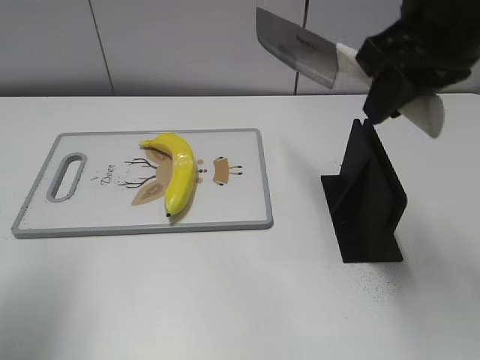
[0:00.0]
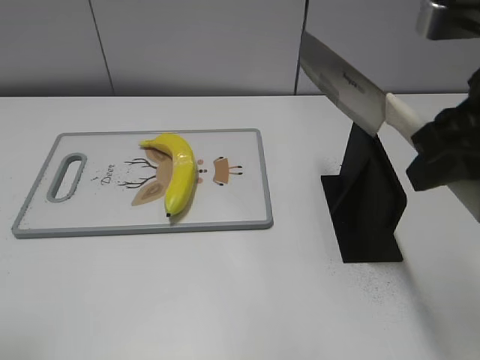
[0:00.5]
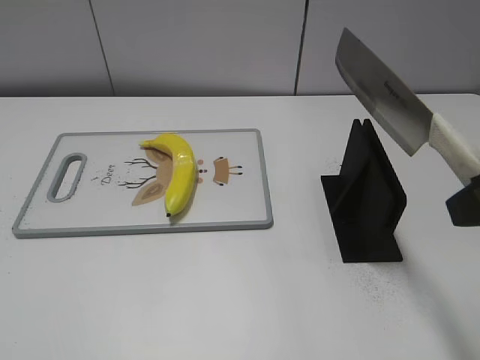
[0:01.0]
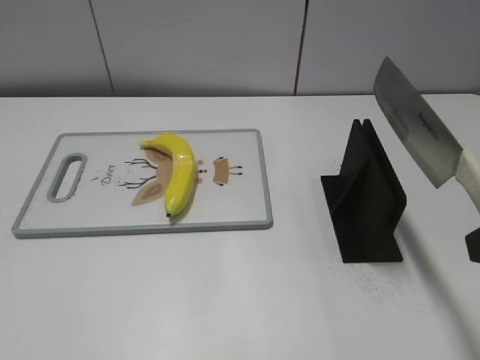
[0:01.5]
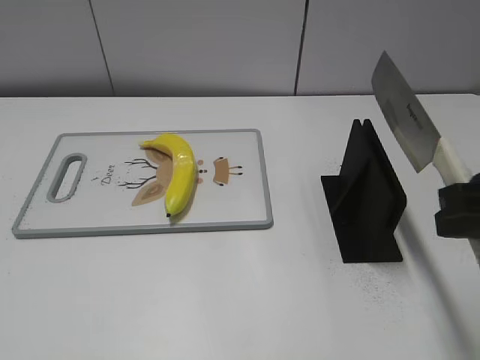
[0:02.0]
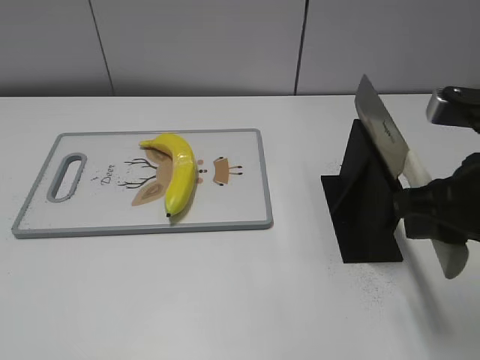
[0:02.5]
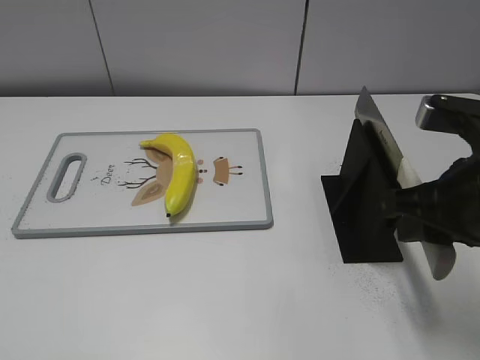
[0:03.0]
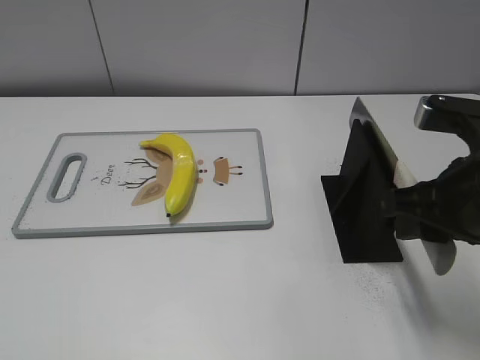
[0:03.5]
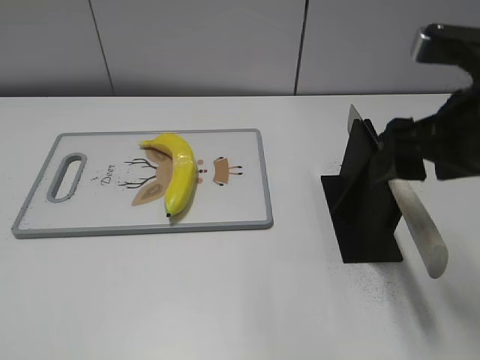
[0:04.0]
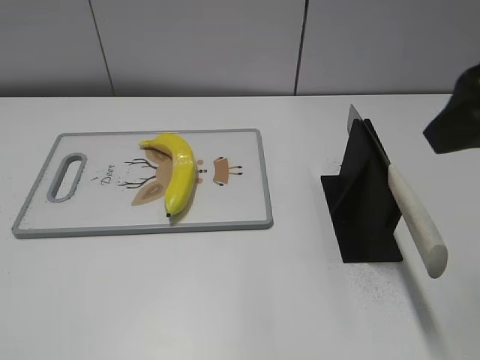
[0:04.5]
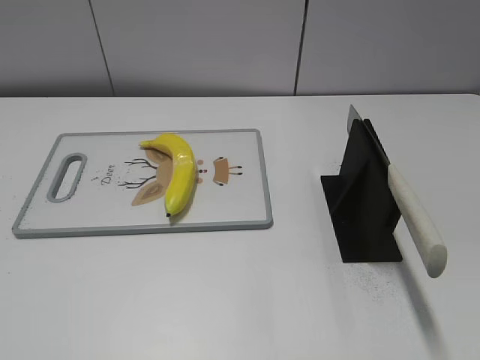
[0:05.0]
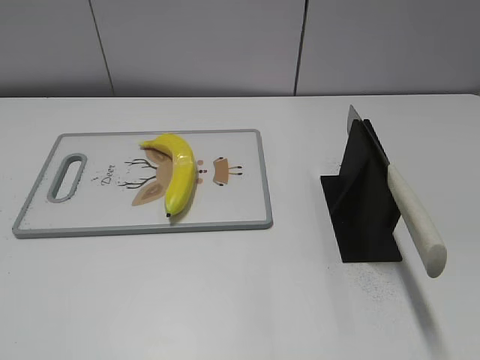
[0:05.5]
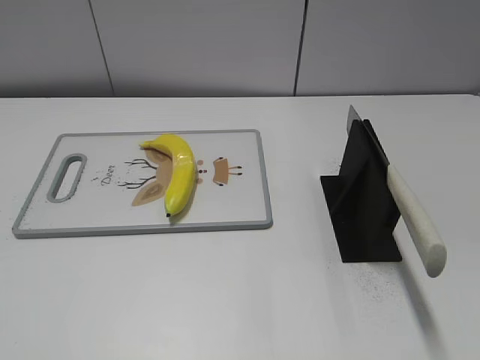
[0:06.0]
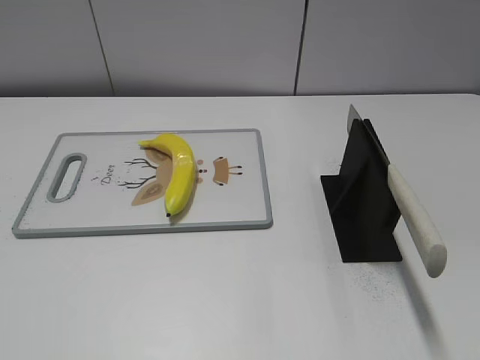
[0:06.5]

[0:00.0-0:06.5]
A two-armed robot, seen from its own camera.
Task of the whole recording: cut plastic banana.
Step, 0:01.0 to 0:06.5: Place the knife on the storage rack with your right hand.
0:00.0 to 0:02.0: The left gripper moves backward, some 20 cm. The right gripper moves backward, downward and to the right, approximately 15 cm.
0:02.0 to 0:04.5: The right gripper travels upward by roughly 10 cm, and opens up.
0:04.5 to 0:06.5: The right gripper goes roughly 20 cm backward and to the right.

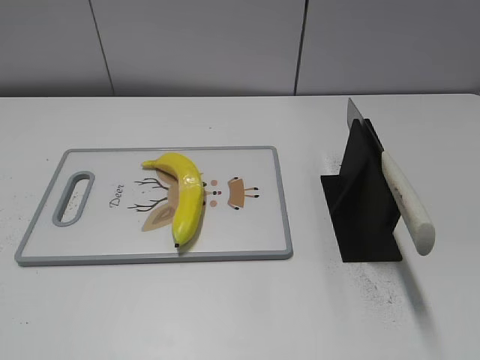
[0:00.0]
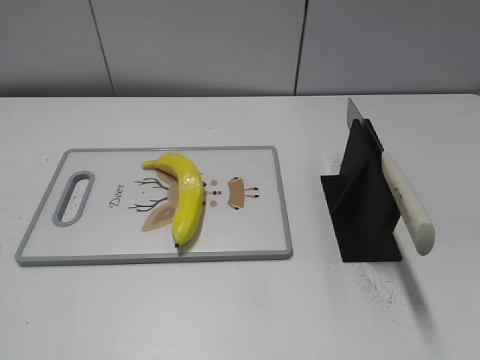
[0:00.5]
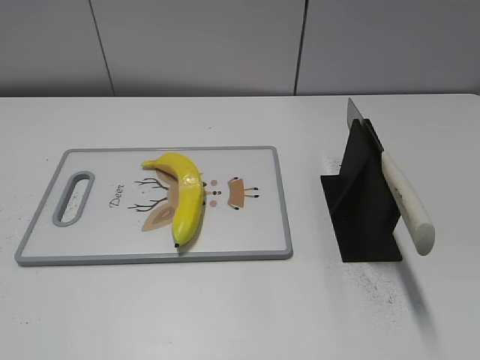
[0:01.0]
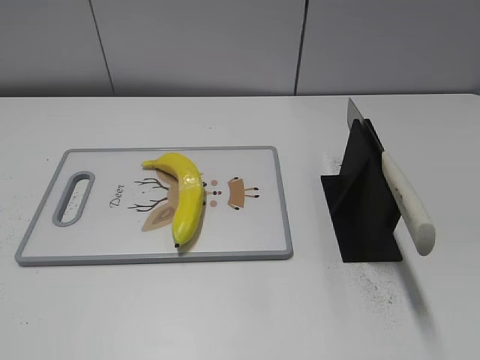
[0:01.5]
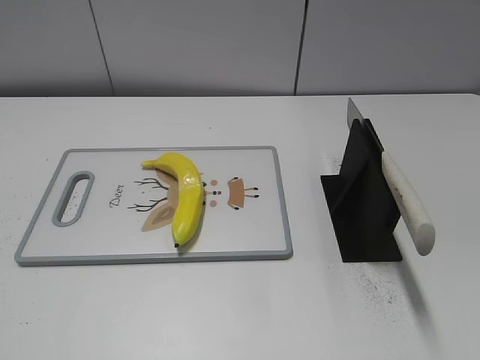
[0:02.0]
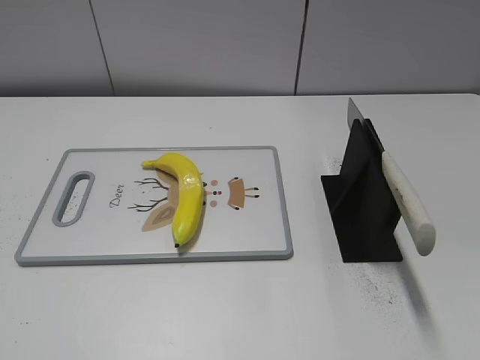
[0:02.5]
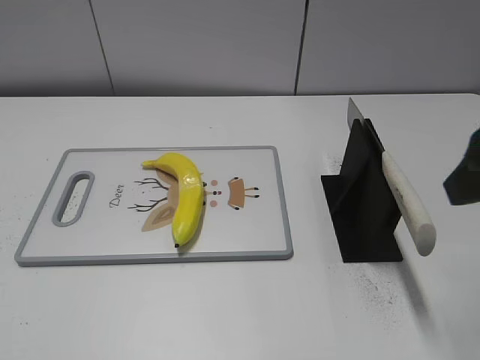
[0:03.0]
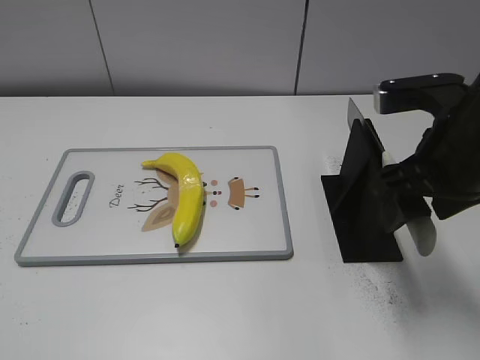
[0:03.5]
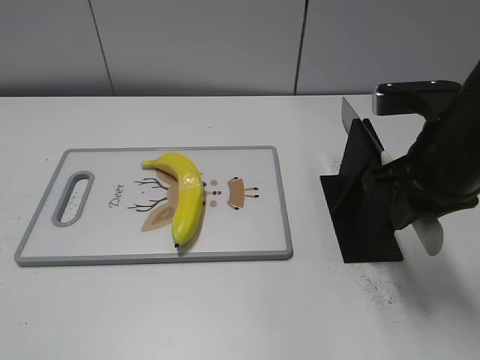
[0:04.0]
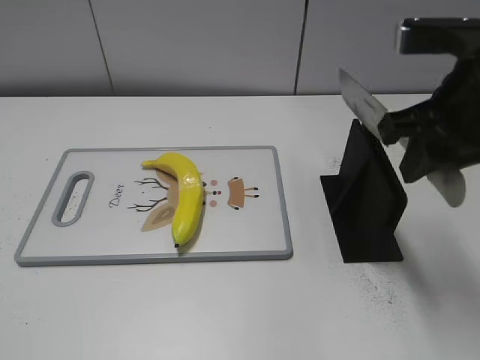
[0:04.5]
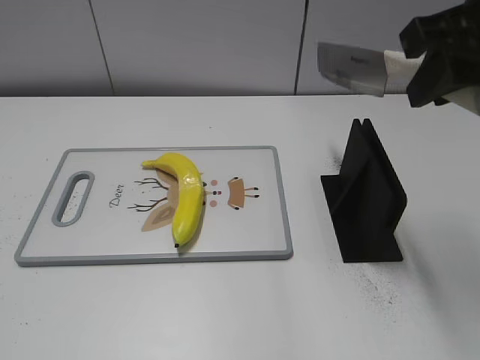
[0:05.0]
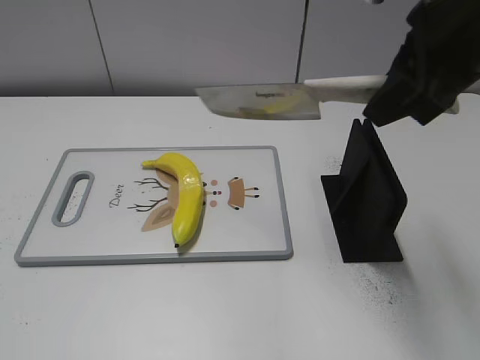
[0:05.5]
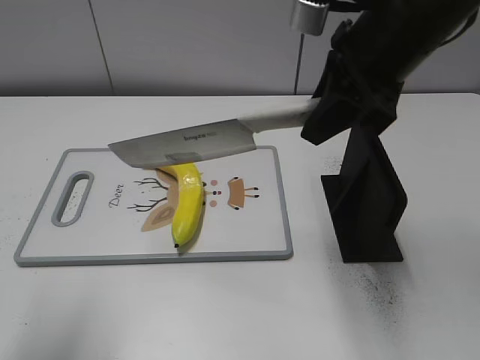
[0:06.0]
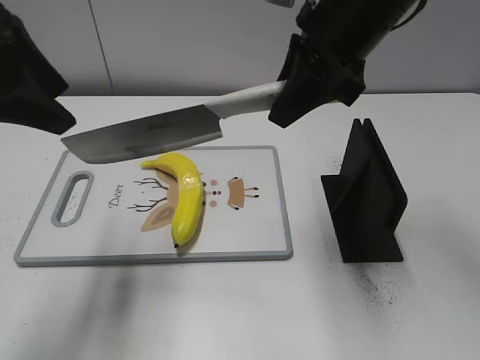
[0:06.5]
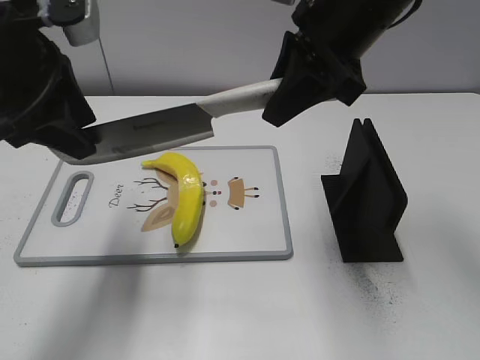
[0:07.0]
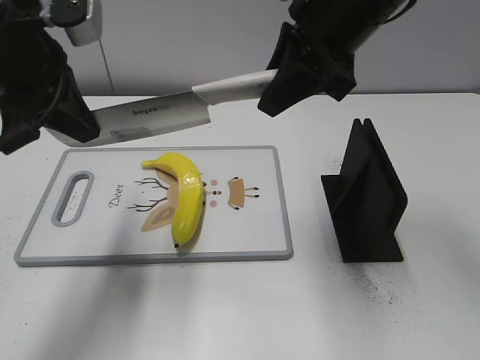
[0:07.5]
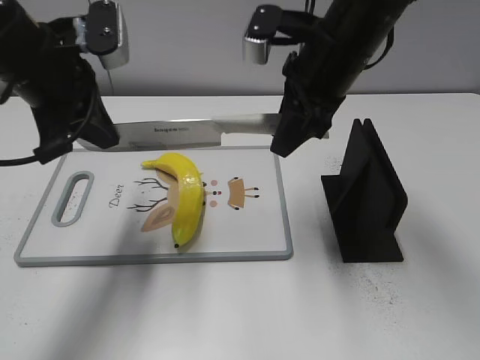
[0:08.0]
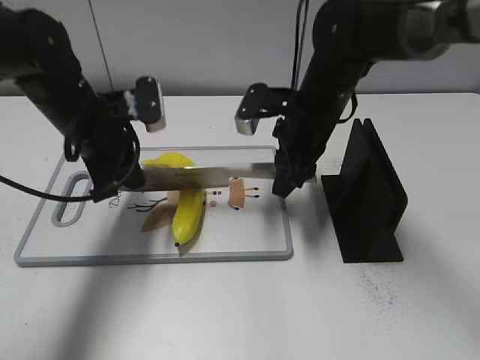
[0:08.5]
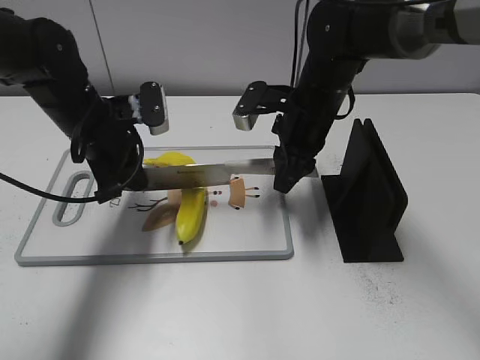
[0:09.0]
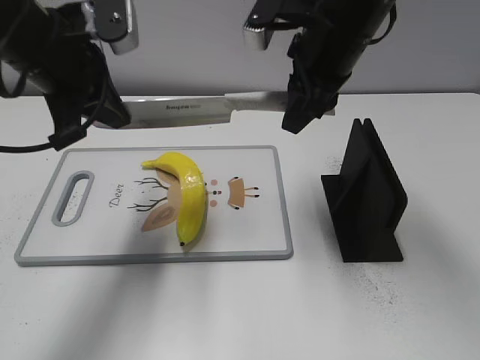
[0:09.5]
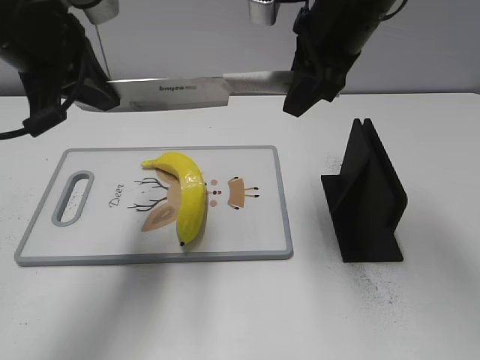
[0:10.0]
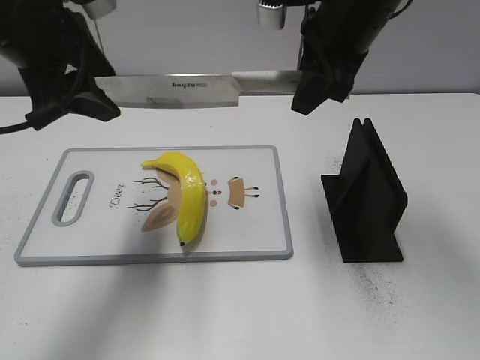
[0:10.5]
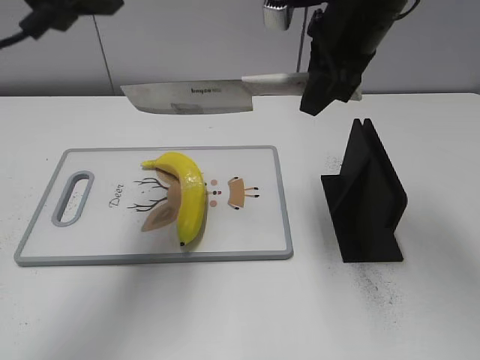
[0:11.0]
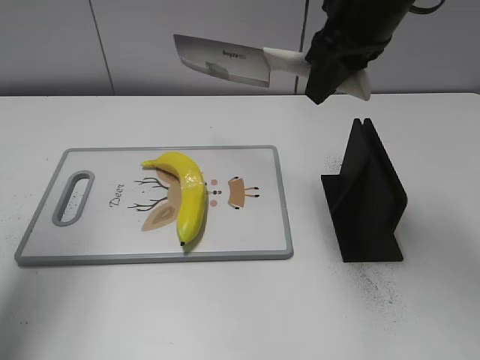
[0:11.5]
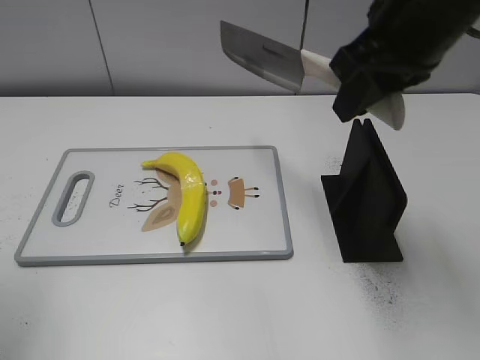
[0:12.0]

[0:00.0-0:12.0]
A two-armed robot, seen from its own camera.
Task of the whole recording: cut plastic banana.
Step, 0:00.0 to 0:05.0: Grab the knife handle with your right hand.
Step, 0:05.5 to 0:09.0: Lift the knife with your right hand.
Step, 0:09.5 to 0:10.5: Cut the banana with your right hand.
0:02.0 to 0:04.0: The right gripper shifts about 25 cm forward, to the left and downward, and closes.
0:04.0 to 0:06.0: The left gripper travels forward by roughly 15 cm, while the right gripper moves upward and to the left, some 10 cm.
0:06.0 to 0:08.0: The left gripper travels forward and to the right by approximately 20 cm, and closes up, while the right gripper travels forward and downward by roughly 10 cm.
0:08.0 to 0:10.0: The left gripper goes downward and returns, roughly 10 cm each way. The right gripper moves about 10 cm downward and comes back.
0:10.0 to 0:12.0: The left gripper goes roughly 20 cm backward and to the left, and opens its fingers. The right gripper is displaced backward by about 5 cm.

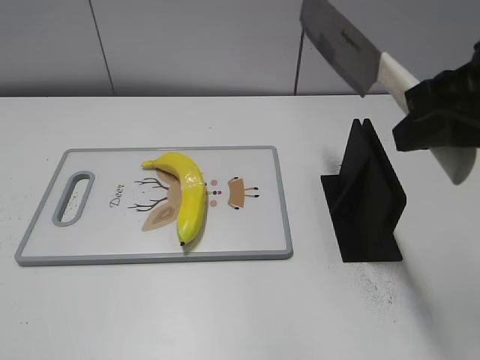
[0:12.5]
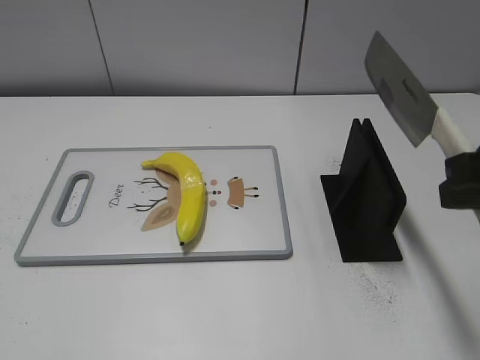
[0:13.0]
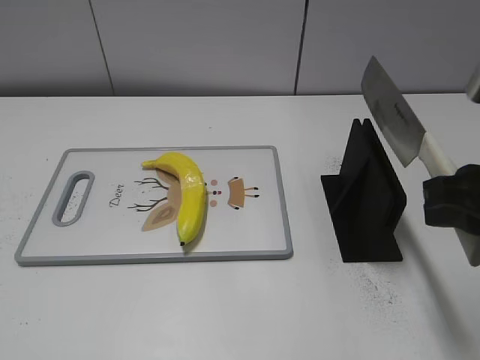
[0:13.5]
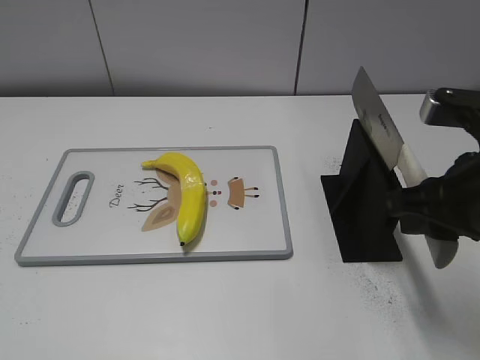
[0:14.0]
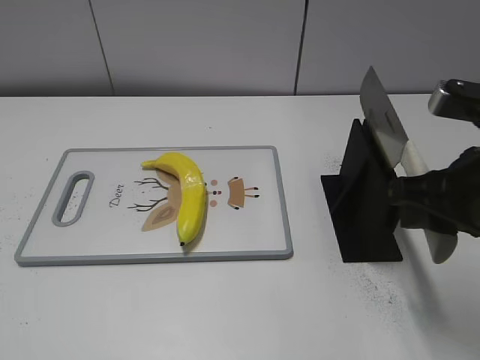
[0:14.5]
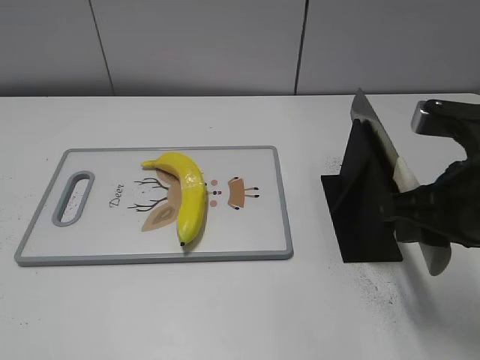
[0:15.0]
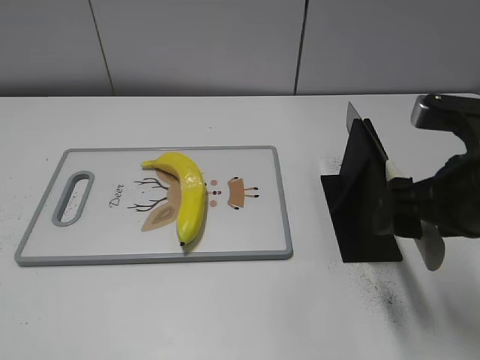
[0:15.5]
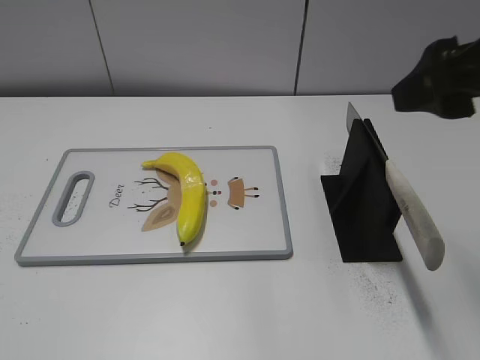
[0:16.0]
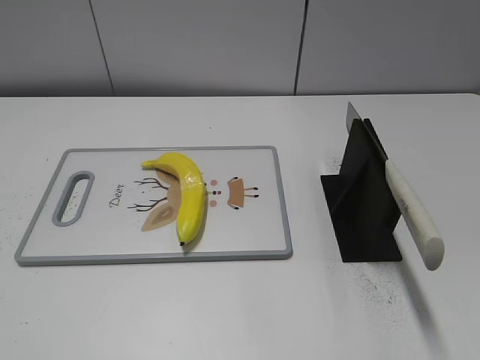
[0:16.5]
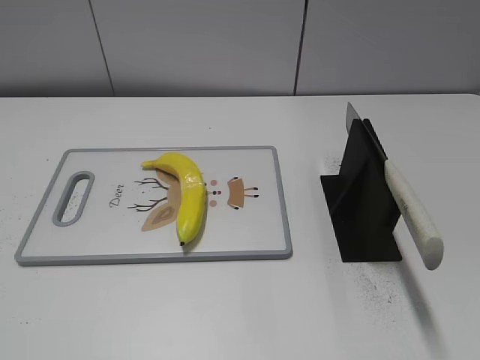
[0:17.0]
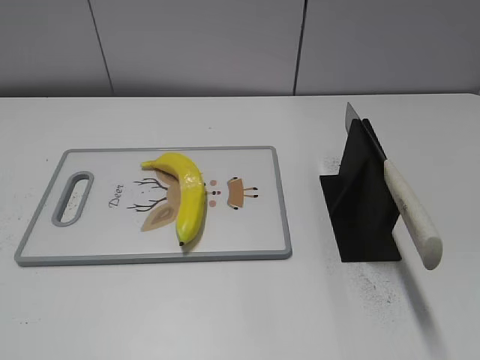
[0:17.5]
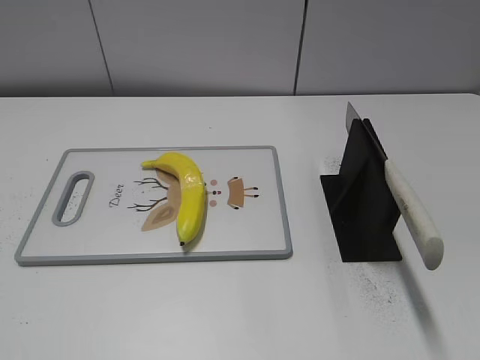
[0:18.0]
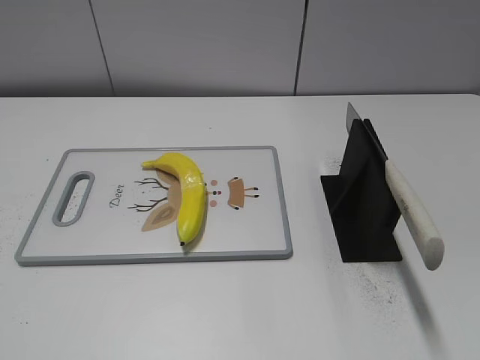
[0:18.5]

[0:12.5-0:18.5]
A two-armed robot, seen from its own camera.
Task of the whole recording: cut plastic banana.
Step, 0:13.0 to 0:18.5: Place the knife on the storage rack with your right hand.
0:12.5 to 0:14.5: The right gripper travels downward by approximately 10 cm.
0:14.5 to 0:16.5: The right gripper moves backward, upward and to the right, approximately 15 cm, and opens.
